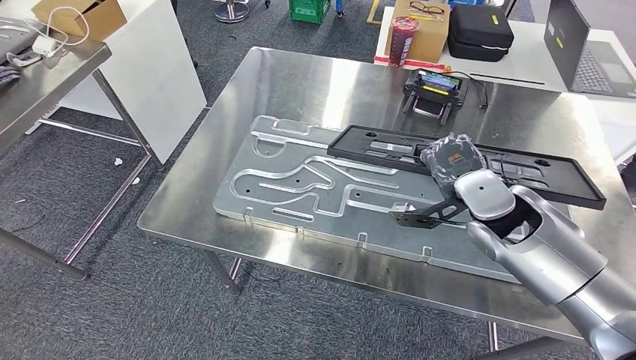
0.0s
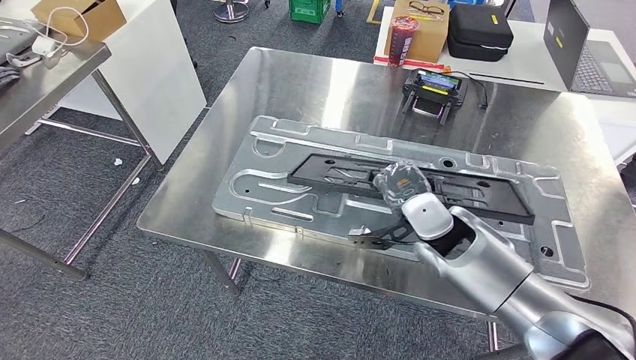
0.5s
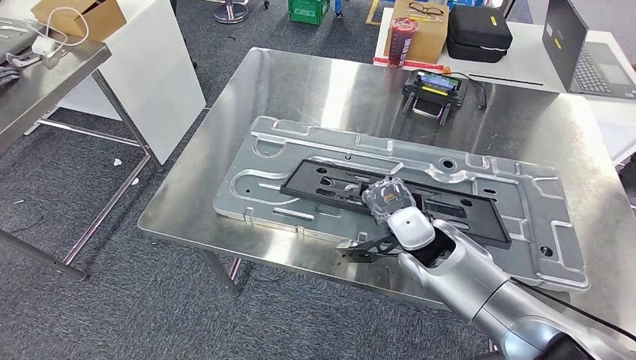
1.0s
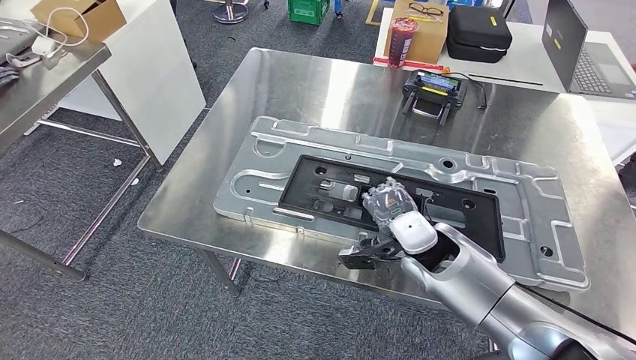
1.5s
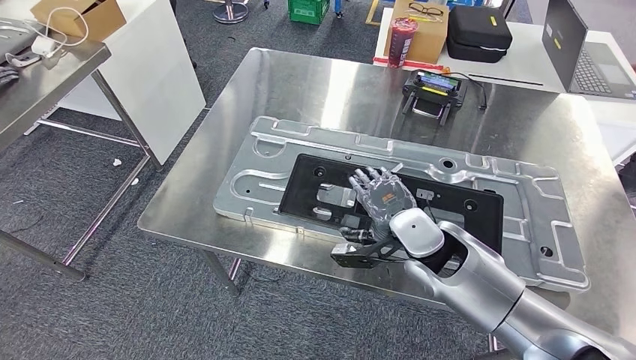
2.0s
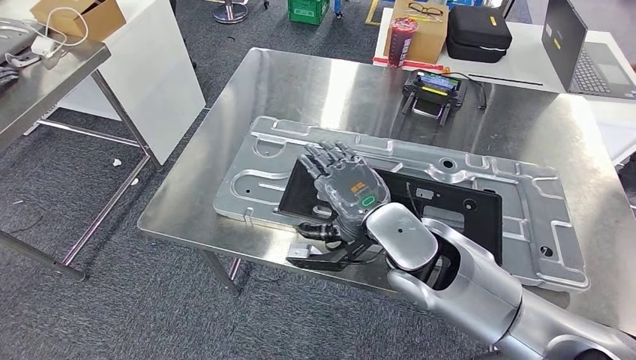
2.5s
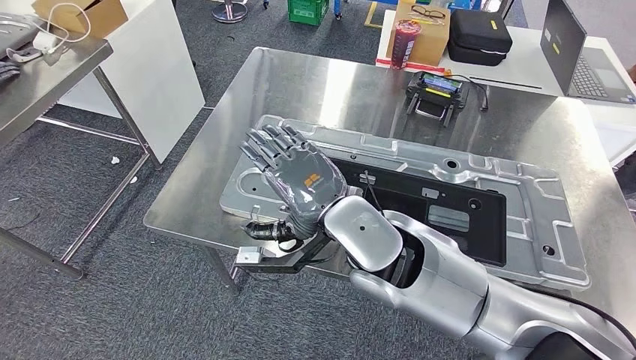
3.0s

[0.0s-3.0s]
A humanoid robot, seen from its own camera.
Step, 0.0s to 3.0s: Insert the large parts into the corresponding slots on the workbench.
